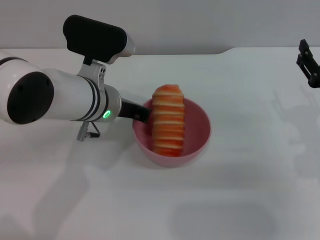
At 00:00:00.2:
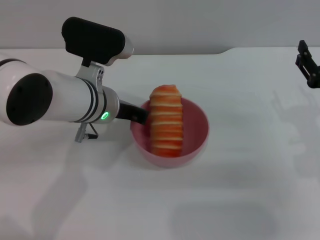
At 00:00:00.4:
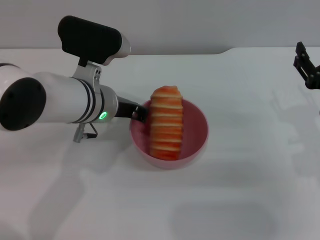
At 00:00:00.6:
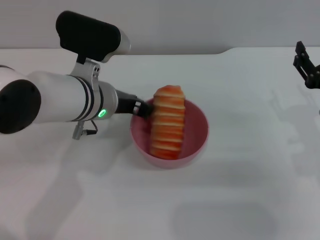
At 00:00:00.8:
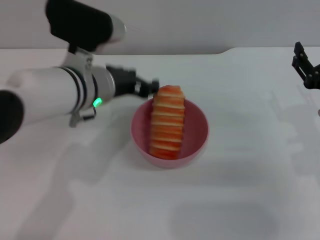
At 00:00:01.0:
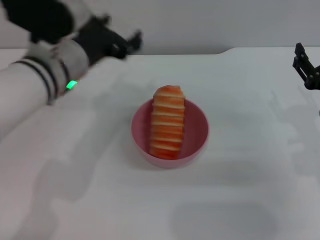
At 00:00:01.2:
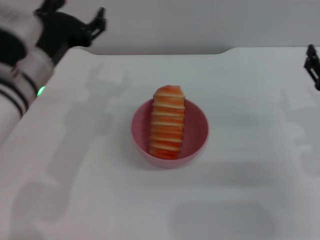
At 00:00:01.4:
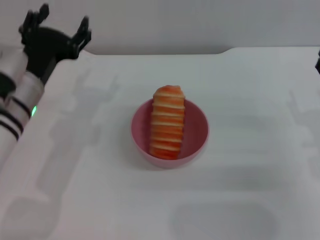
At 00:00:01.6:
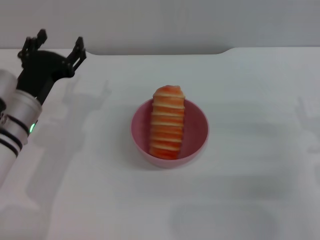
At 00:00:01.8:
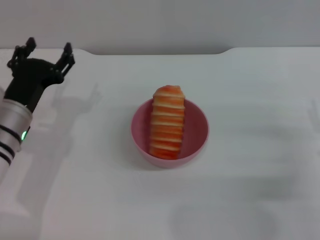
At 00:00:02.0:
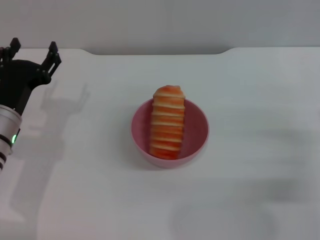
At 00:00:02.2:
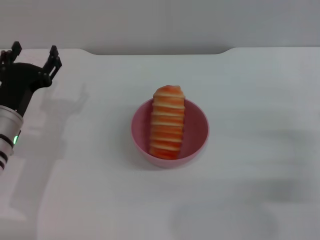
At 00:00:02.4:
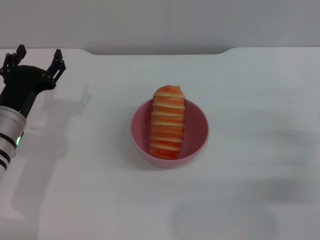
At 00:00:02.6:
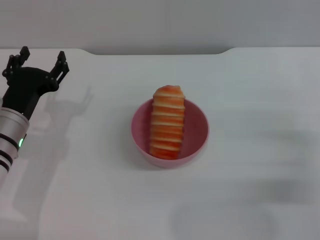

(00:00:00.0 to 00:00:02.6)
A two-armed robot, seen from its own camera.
Task of the whole recording: put the bread into the pink bowl and pour it out repeatedly.
00:00:00.0 - 00:00:01.2: The left gripper goes some 10 cm to the left, and opens its fingers.
00:00:01.2 - 00:00:02.6: The left gripper shifts approximately 10 cm downward and to the left; the right gripper moves about 5 cm.
